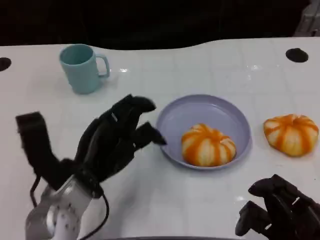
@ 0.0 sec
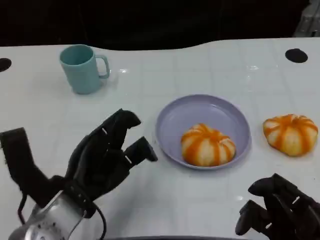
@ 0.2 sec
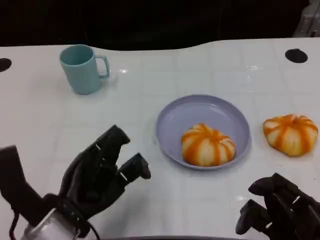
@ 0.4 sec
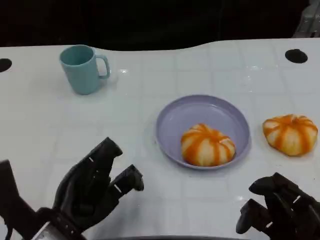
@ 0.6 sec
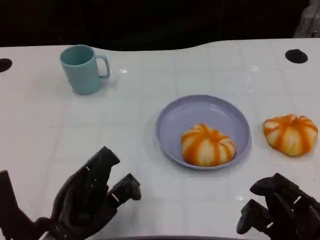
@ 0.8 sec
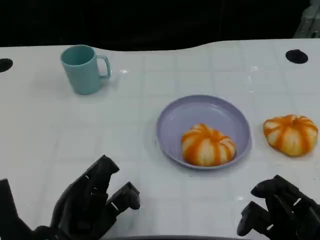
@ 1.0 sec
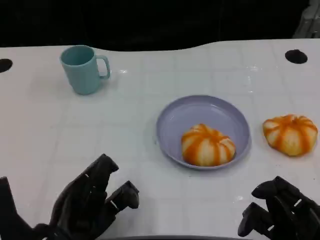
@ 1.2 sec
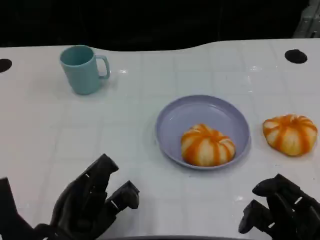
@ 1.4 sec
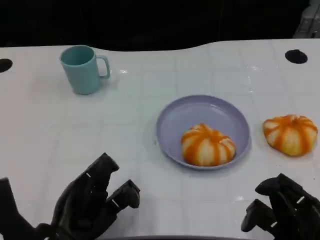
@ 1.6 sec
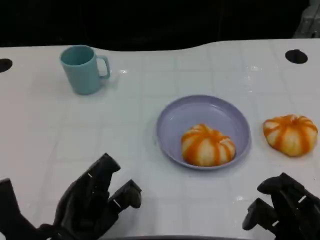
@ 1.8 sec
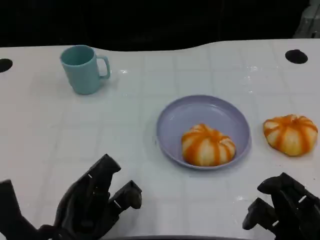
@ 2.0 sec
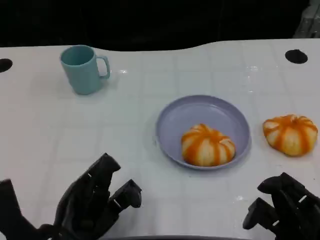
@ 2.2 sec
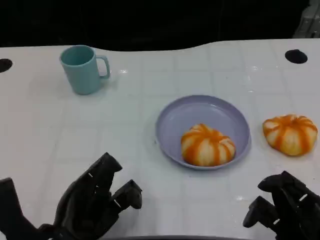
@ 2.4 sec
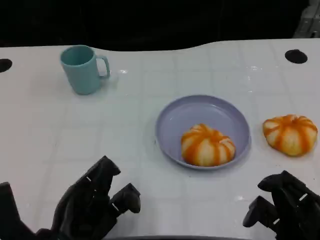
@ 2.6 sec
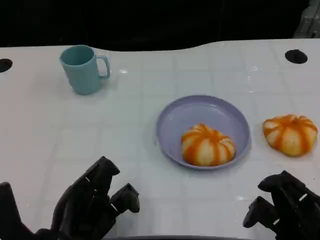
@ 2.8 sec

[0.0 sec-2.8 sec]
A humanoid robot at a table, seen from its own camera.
Task of the whole recording: Grasp the bread from the table and place it into the plate.
0.0 sec to 1.4 sec: The left hand heads backward, covering about 5 cm.
1.4 sec to 2.8 sec: Neither hand changes place.
